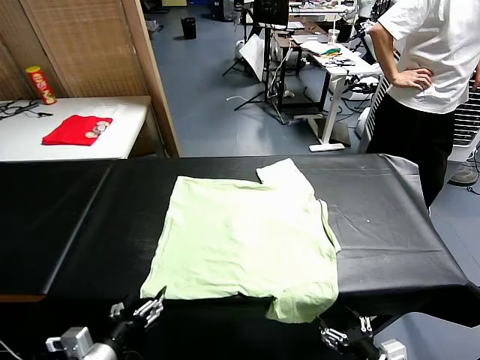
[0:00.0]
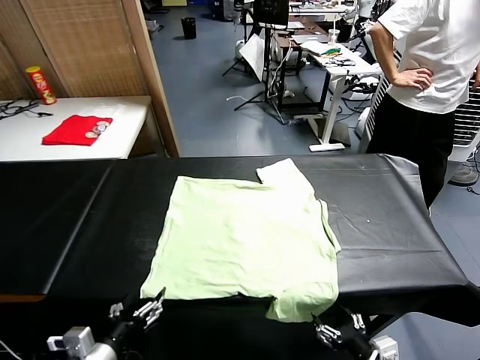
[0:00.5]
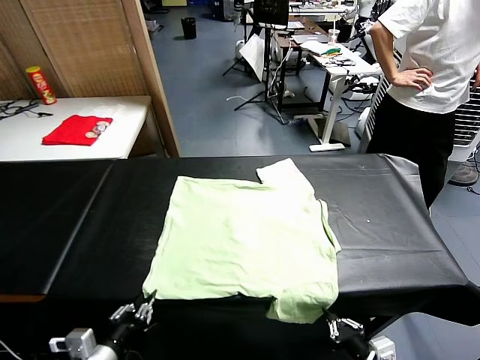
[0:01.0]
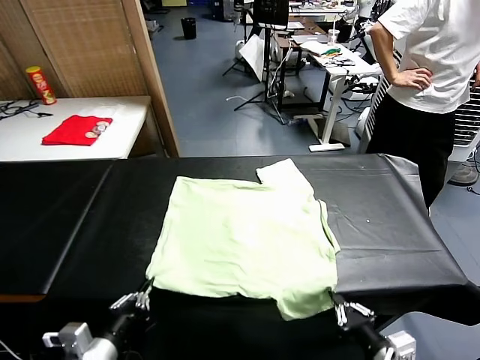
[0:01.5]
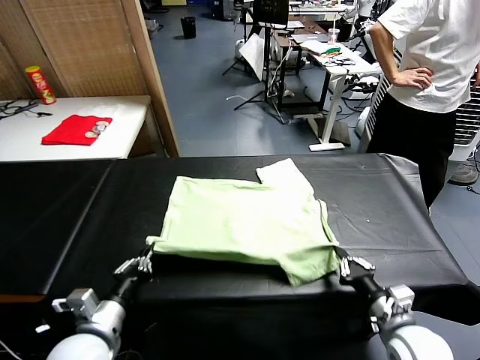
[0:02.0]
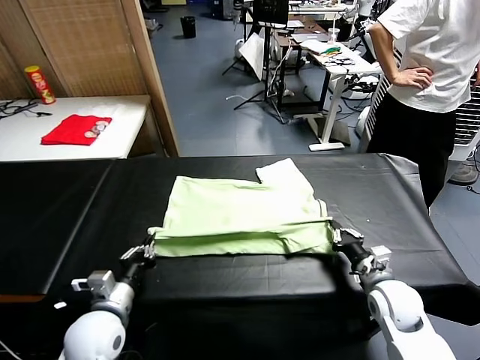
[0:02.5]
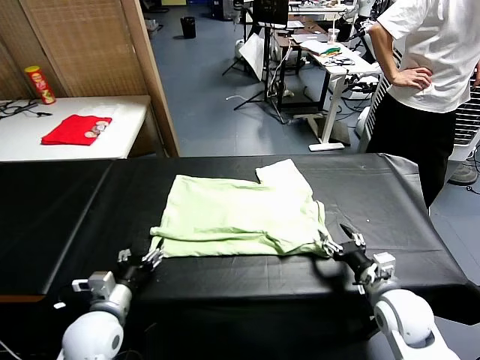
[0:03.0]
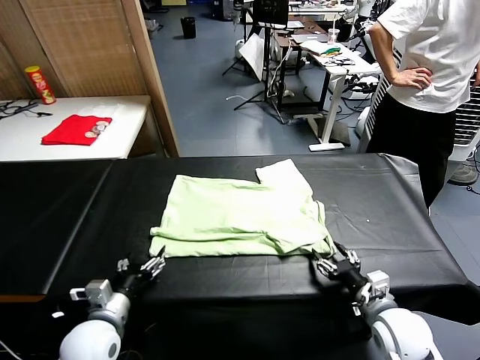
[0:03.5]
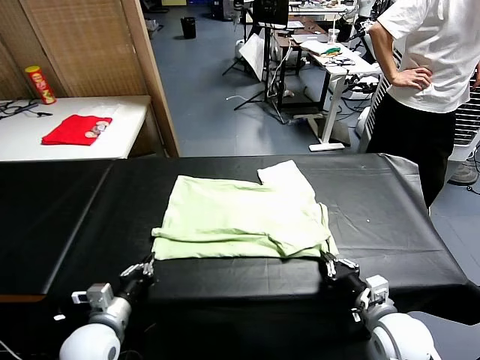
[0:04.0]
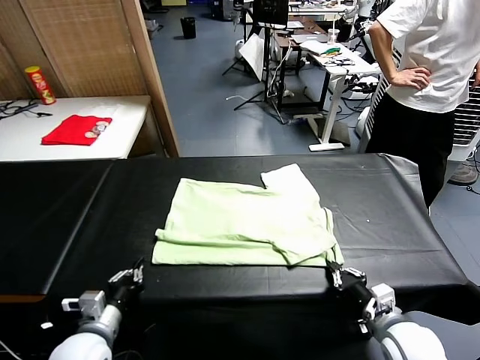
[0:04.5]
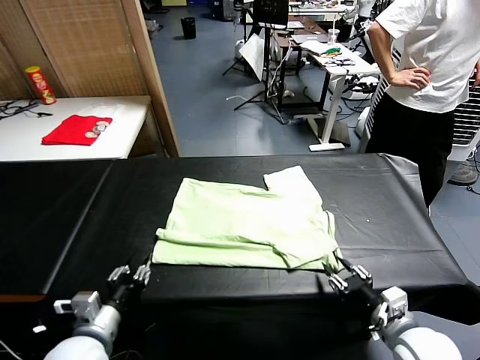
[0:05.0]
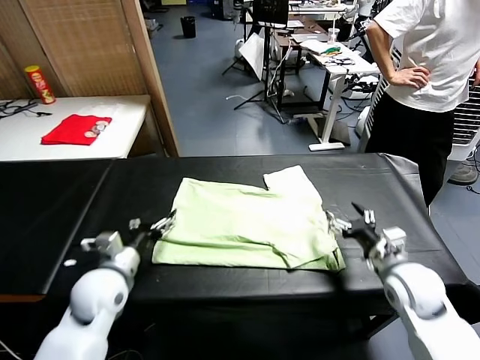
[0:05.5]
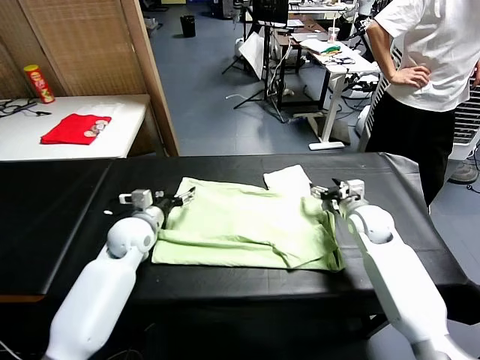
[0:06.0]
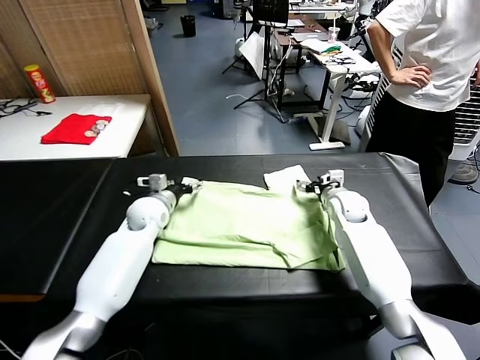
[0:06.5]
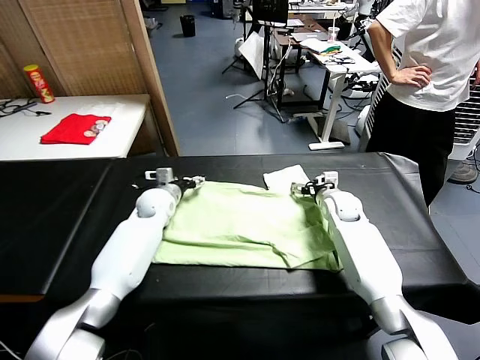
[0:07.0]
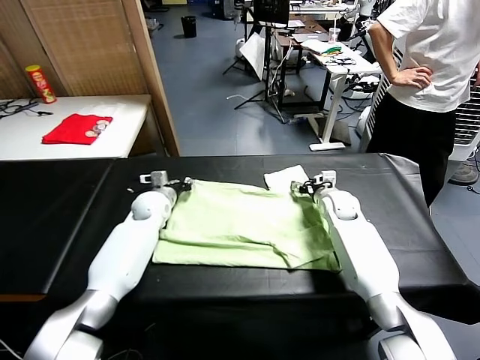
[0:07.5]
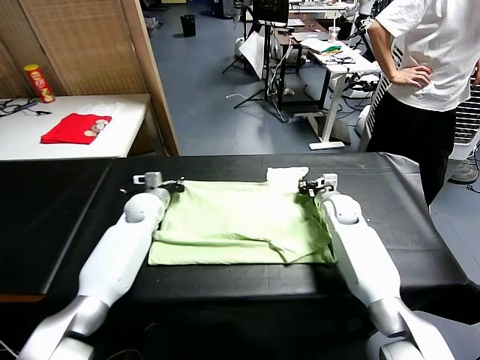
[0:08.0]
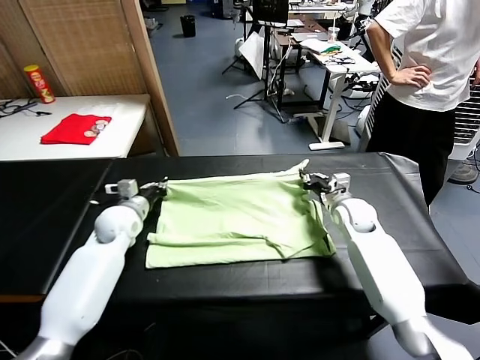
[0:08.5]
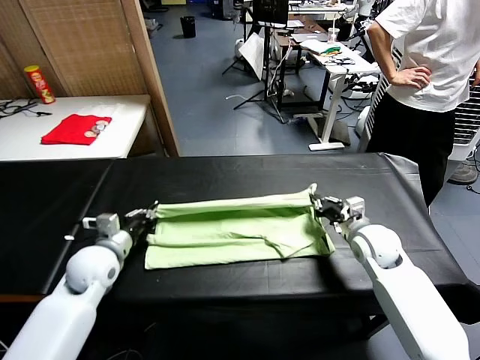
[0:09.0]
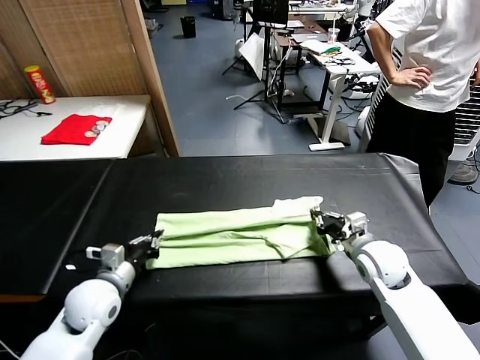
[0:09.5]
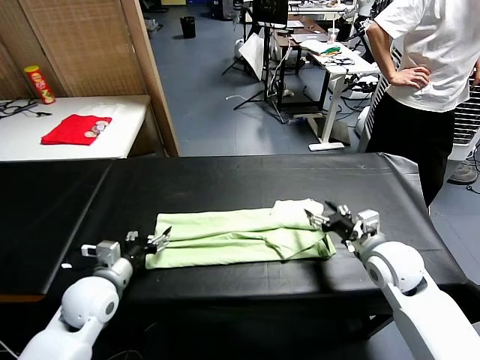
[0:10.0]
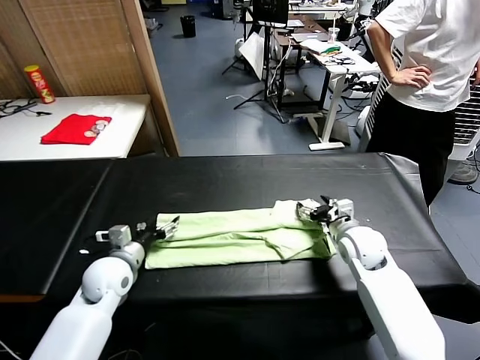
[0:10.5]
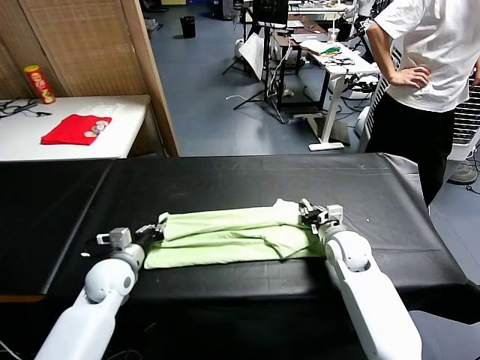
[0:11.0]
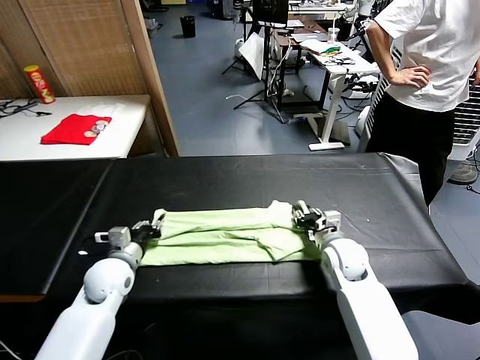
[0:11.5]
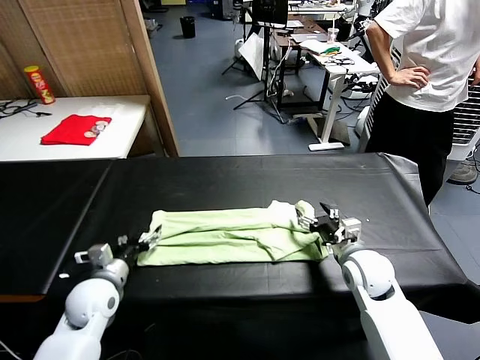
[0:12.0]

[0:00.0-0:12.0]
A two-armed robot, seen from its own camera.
Task of the whole recording: fold and organize the clothes.
Step, 0:00.0 to 0:01.0: use both grippers simultaneously to clamp the lower edge of the clothing fabric.
Step, 0:01.5 to 0:02.5: use both grippers to drag the lower edge of the fabric forward and fold it over the upper edge.
Step, 0:03.0 to 0:05.0: Drag the clothes downward with both gripper.
Step, 0:05.5 to 0:07.5: use both grippers simultaneously to clamp the upper edge of the clothing fabric.
Step, 0:08.0 to 0:09.5: use both grippers to drag the upper edge of the fabric backward and fold it over the lower edge.
0:02.0 to 0:04.0: The left gripper moves downward, about 5 cm, and opens, then closes once more, while the right gripper travels backward by approximately 5 cm, and opens, then closes once more.
0:04.0 to 0:06.0: Both grippers move forward, approximately 25 cm. The right gripper opens, while the left gripper opens its fingers.
0:06.0 to 0:08.0: The left gripper moves forward, approximately 10 cm, and closes up, while the right gripper closes its fingers.
0:08.0 to 0:10.0: The left gripper shifts approximately 25 cm backward, and opens up. The right gripper goes roughly 20 cm backward and upward, and opens.
0:10.0 to 0:12.0: The left gripper closes and opens again, while the right gripper closes, then reopens.

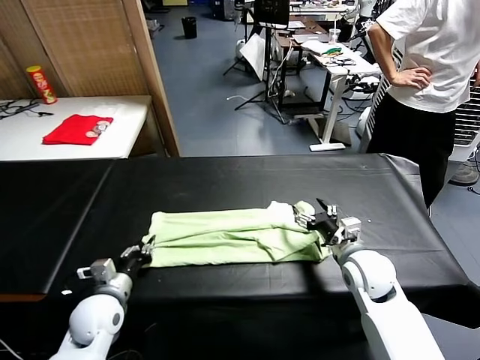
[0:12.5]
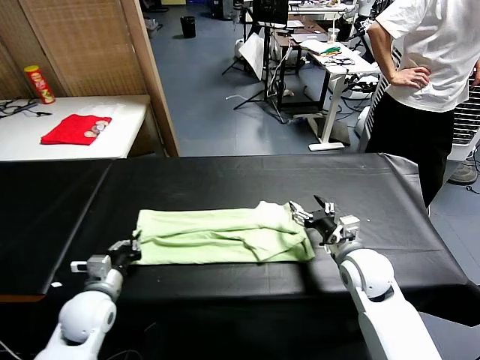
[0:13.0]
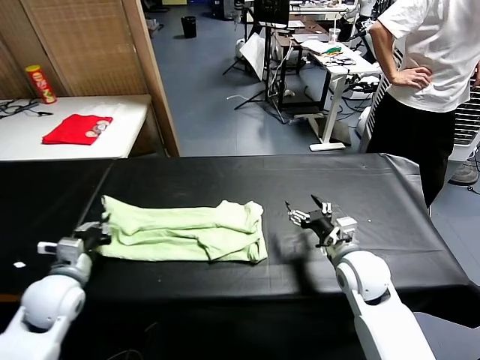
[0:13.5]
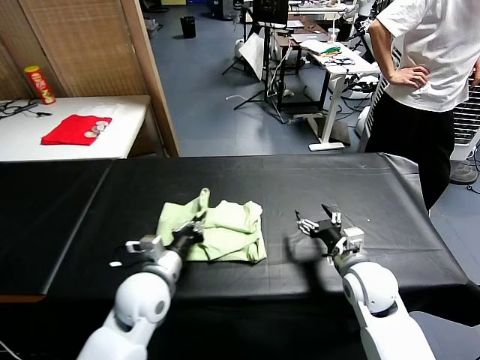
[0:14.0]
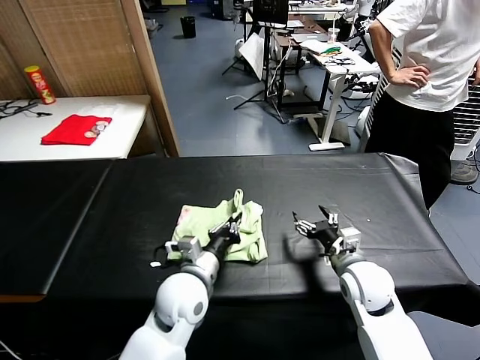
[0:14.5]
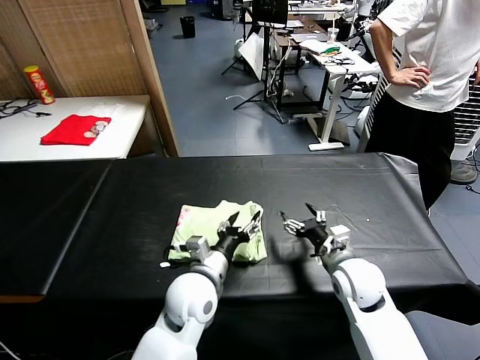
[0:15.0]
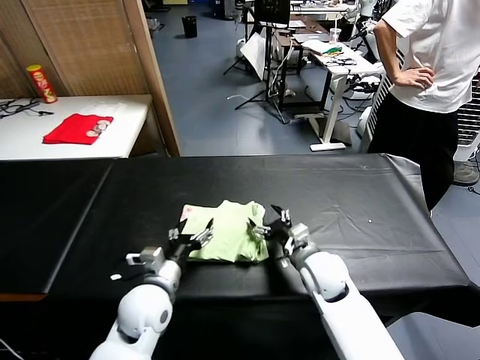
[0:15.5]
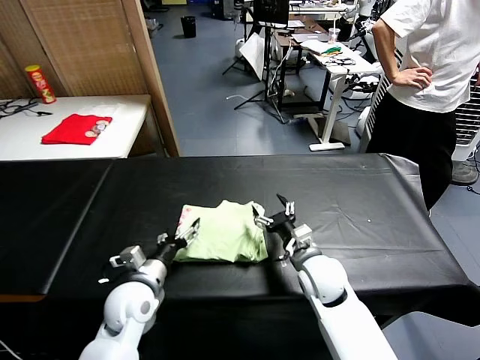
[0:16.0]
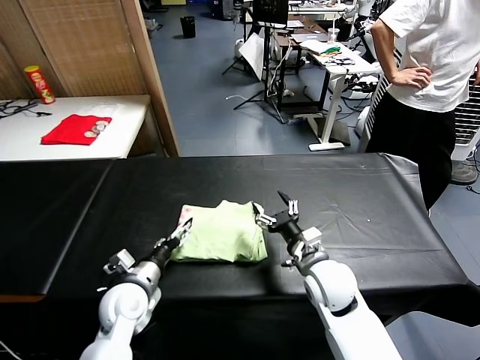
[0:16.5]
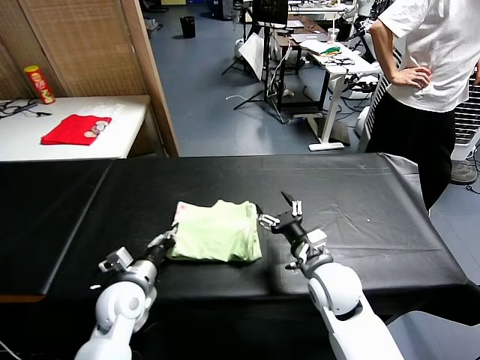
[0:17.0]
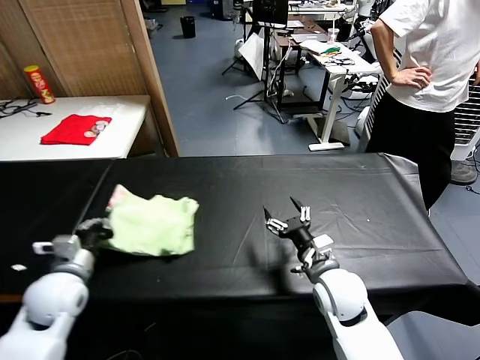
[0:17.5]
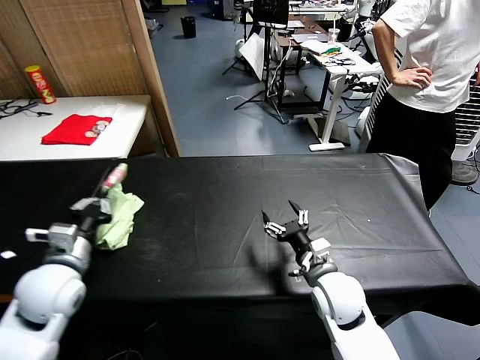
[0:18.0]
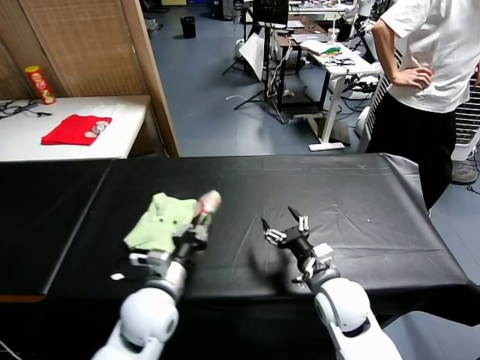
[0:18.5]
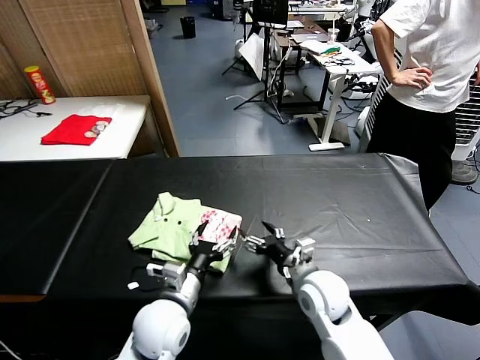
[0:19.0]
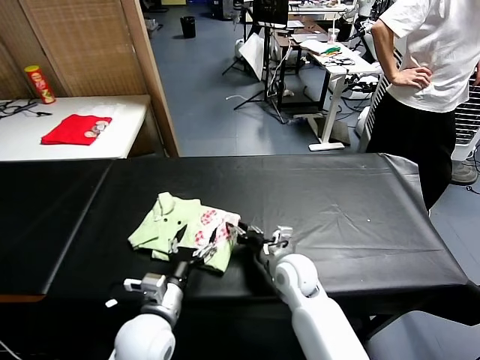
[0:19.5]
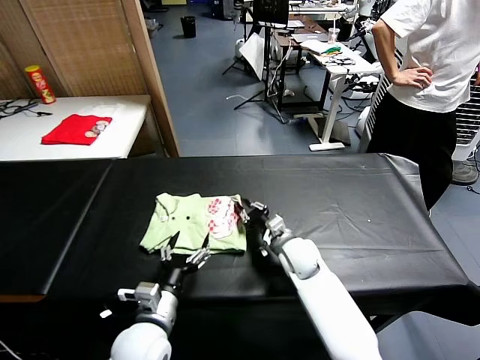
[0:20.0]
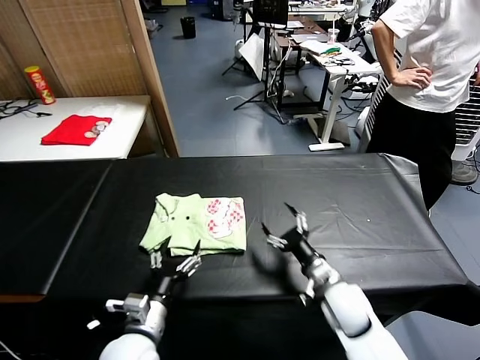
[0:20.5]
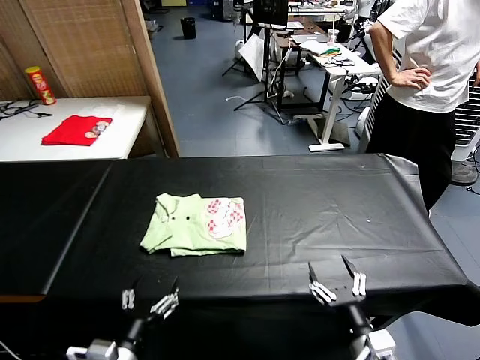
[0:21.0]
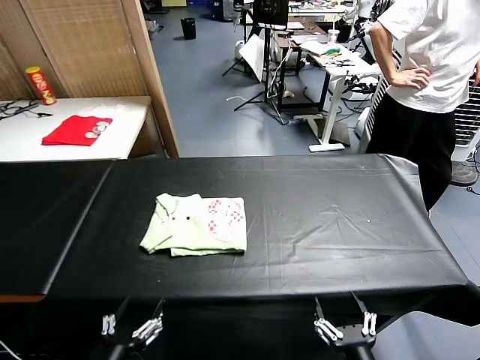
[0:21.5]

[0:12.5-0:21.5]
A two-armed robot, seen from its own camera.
Task of the whole recording: fold and organize the clothes.
Step, 0:13.0 to 0:15.0: use the left gripper to drag the left edge of the fabric to the left and folds it over the right edge.
Step, 0:15.5 to 0:18.5: Flip the folded clothes over with left gripper.
Step, 0:19.0 to 0:20.0: Drag the clothes to the center of the table.
0:12.5 to 0:14.5: The left gripper goes approximately 20 cm to the right.
0:14.5 to 0:17.0: The left gripper travels to the left by roughly 15 cm, and opens, then closes again, while the right gripper travels to the left by roughly 5 cm.
0:17.0 to 0:19.5: The left gripper goes roughly 10 cm to the right and backward, and opens up; the right gripper is displaced to the left and downward by about 10 cm, and closes.
0:19.5 to 0:21.5: The left gripper goes about 15 cm backward and to the left. Meanwhile the right gripper heads backward, covering some 30 cm, and opens up.

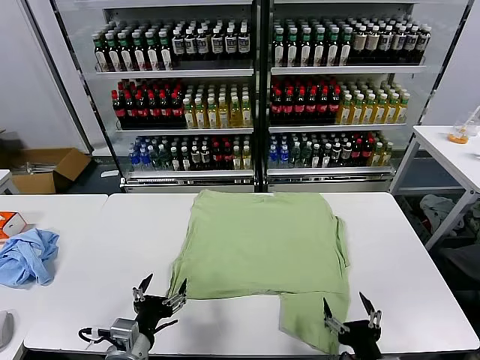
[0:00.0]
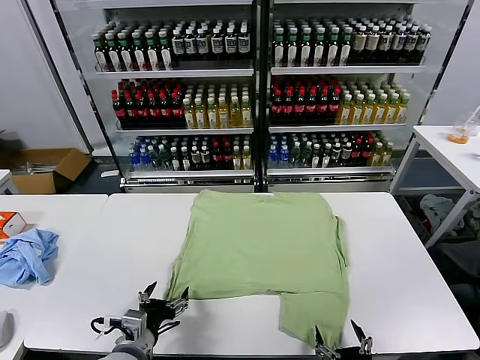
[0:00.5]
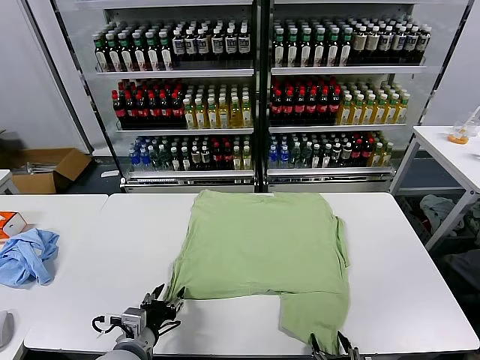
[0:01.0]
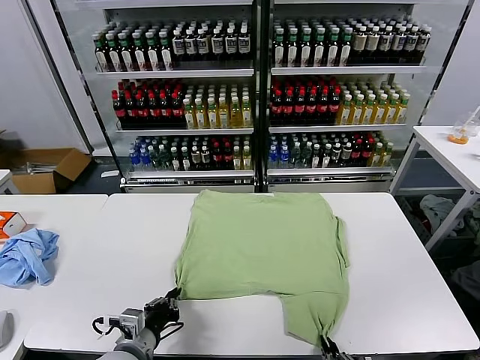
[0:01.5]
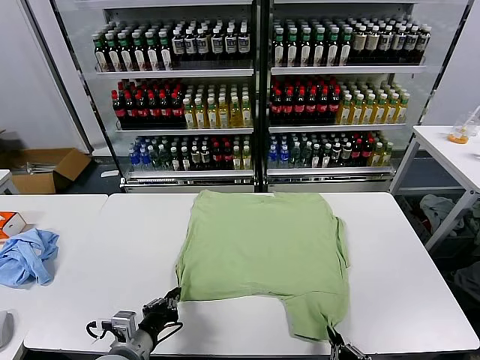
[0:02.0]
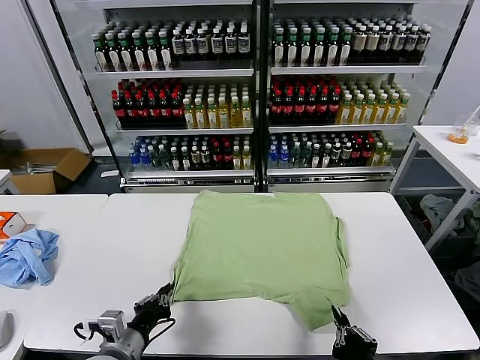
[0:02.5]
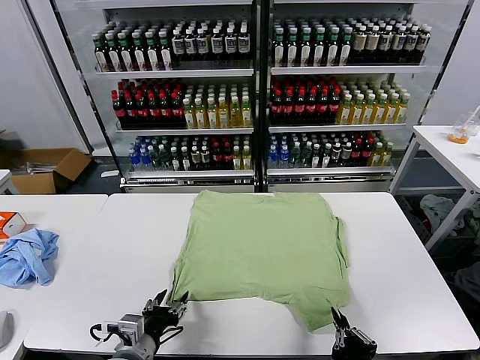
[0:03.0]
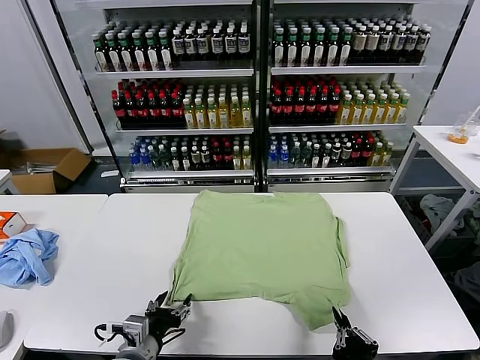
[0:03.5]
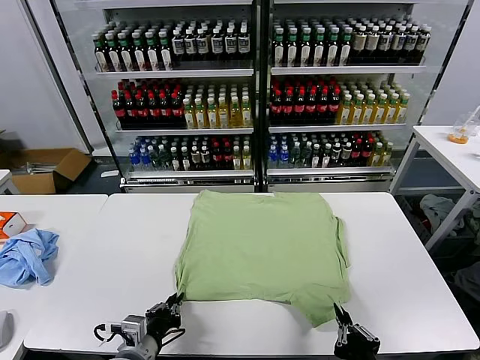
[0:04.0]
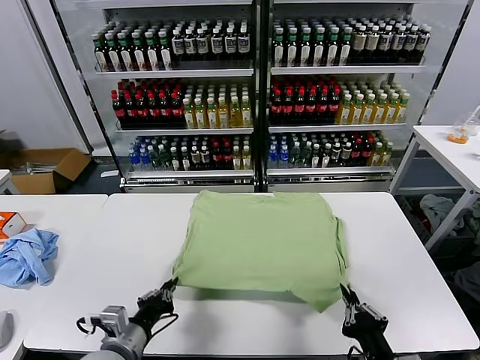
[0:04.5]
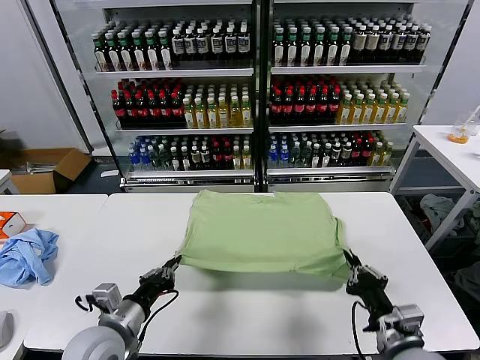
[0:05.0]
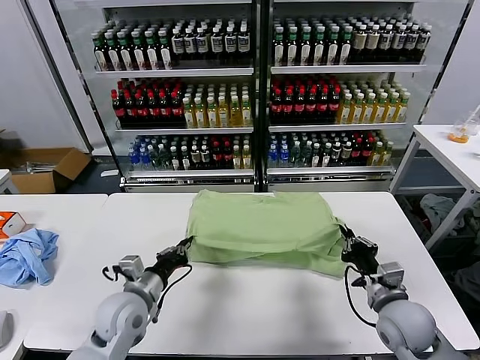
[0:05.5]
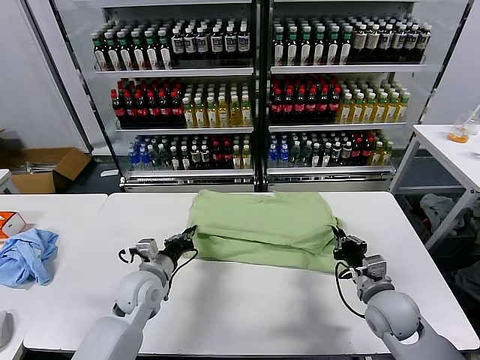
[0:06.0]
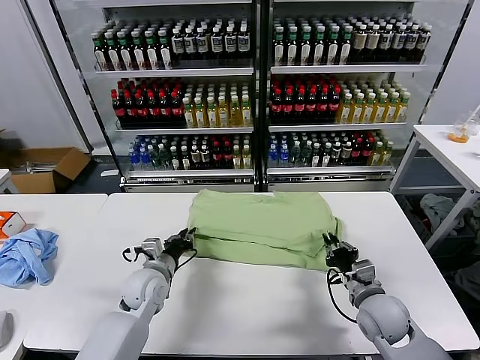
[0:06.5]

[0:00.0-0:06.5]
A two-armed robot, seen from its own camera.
Task of the whole recording: fold and organize the clothes.
Step, 0:00.0 to 0:01.5: use both grippers simultaneously to clamp the lower edge of the clothing fabric.
0:02.0 to 0:04.5: The left gripper opens, then closes again. The right gripper shifts by approximately 5 cm.
0:04.5 to 0:06.5: The grippers both shift forward by roughly 20 cm.
